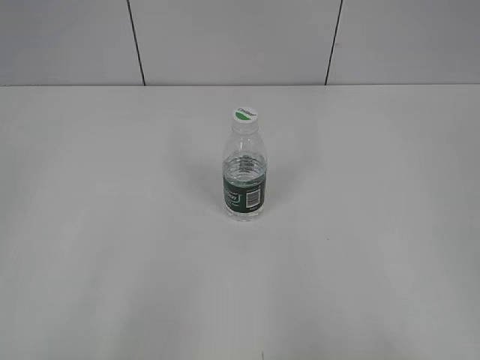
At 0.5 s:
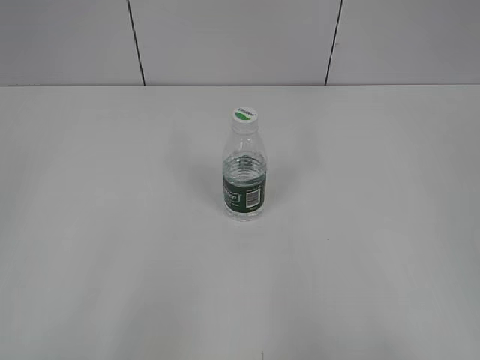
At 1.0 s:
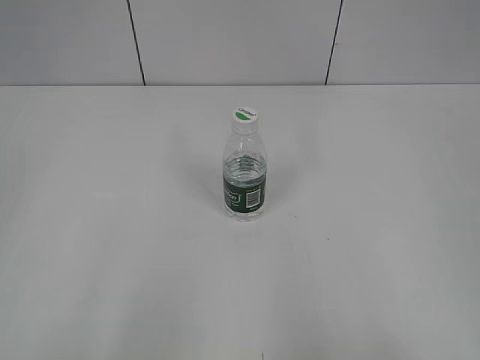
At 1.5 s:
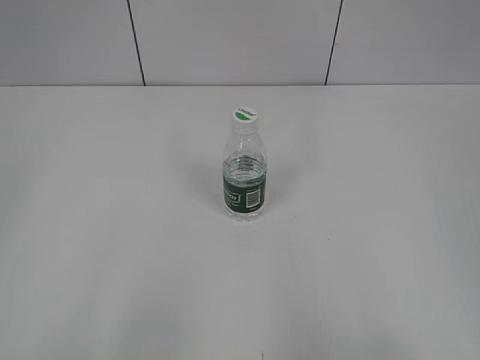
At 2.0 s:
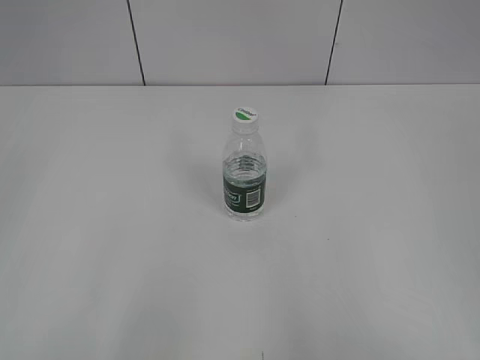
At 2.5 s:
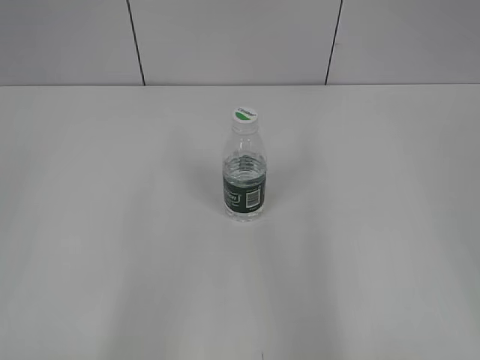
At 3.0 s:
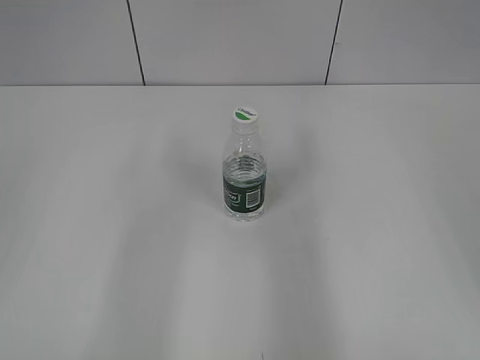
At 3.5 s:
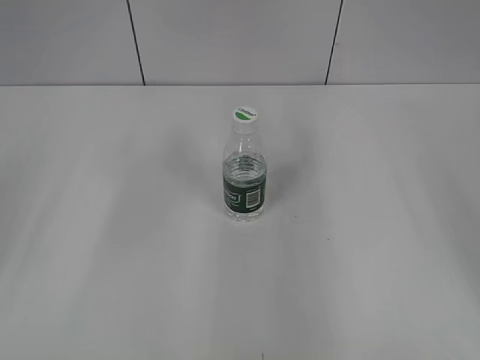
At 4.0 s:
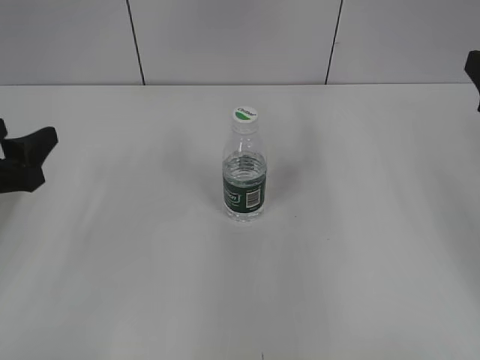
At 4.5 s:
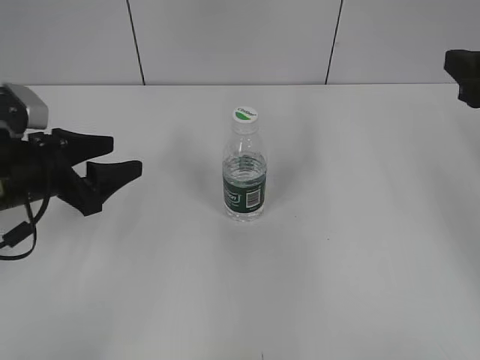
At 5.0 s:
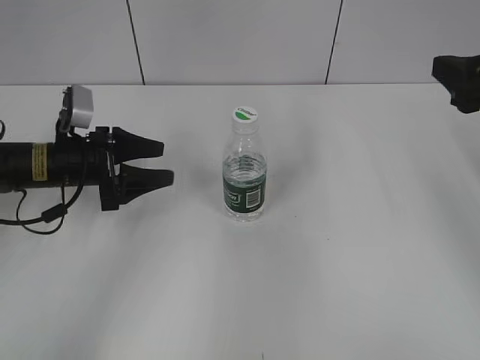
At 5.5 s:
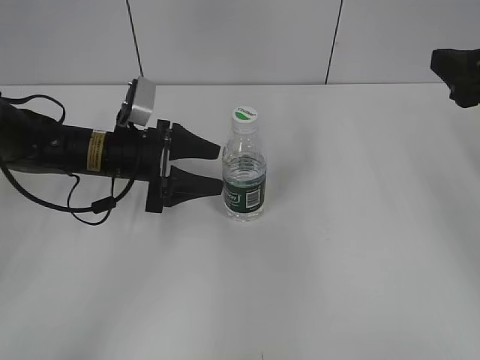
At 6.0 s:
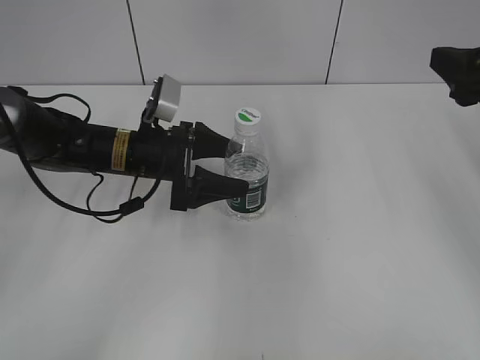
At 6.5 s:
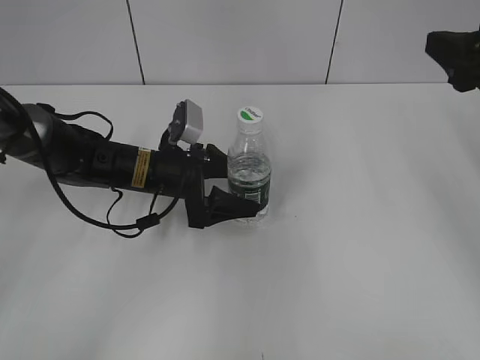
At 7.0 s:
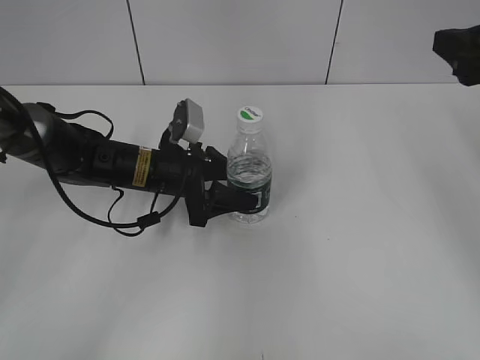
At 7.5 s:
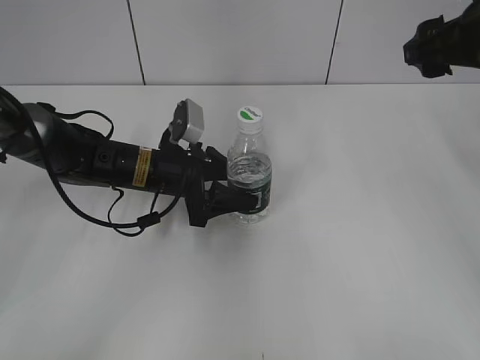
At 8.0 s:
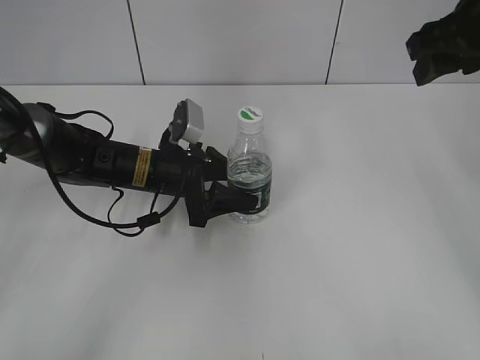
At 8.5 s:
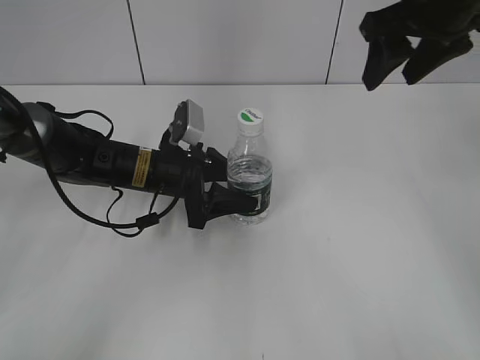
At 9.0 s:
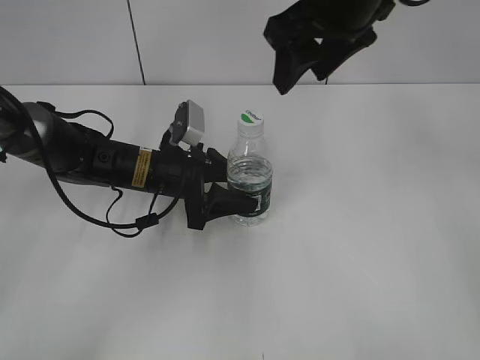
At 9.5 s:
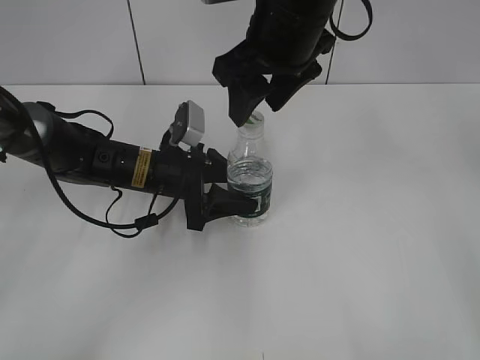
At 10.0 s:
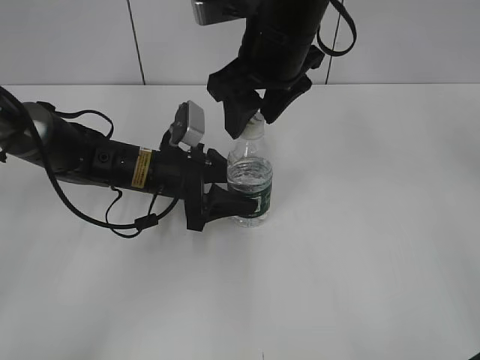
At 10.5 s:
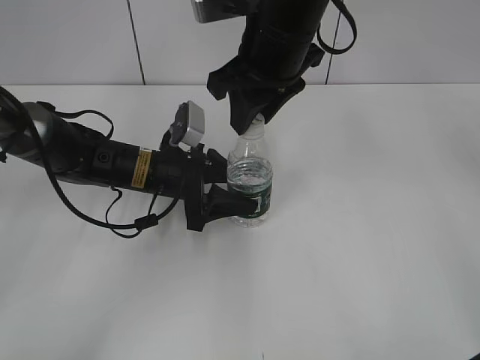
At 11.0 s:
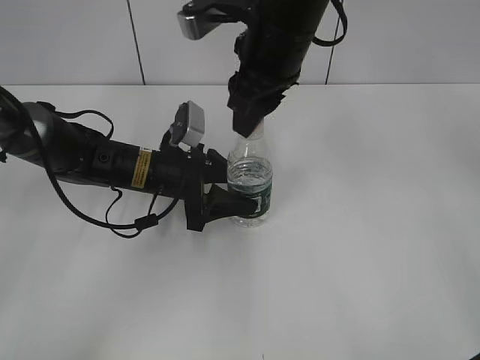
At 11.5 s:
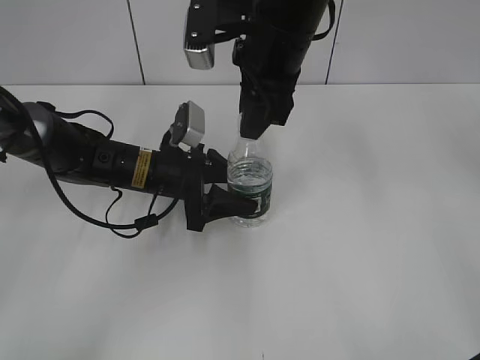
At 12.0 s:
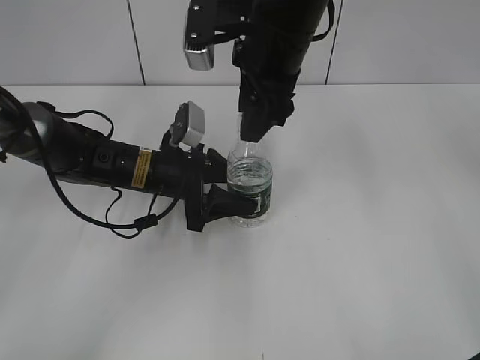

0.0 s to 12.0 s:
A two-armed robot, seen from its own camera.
Step, 0.0 to 7.0 s: Grasp the bottle and move it to the center of the table with the left gripper.
2.0 to 4.0 s: The left gripper goes about 25 cm forward and downward. Meanwhile the right gripper shifts about 25 cm forward.
4.0 to 6.0 s: The left gripper is displaced to the right and forward by some 20 cm, and opens its fingers.
6.0 to 8.0 s: The right gripper shifts roughly 5 cm forward; the left gripper closes.
8.0 to 10.0 s: The right gripper heads to the left, covering approximately 20 cm.

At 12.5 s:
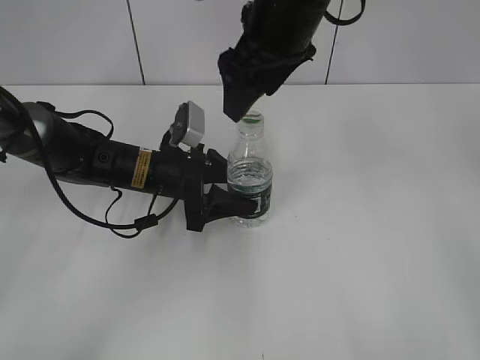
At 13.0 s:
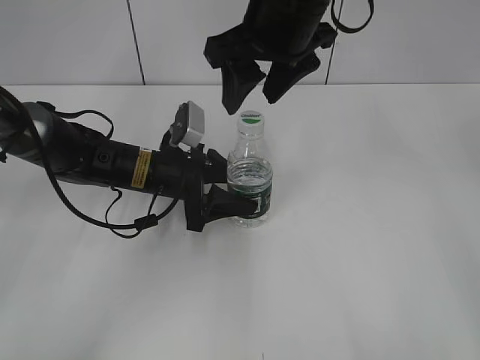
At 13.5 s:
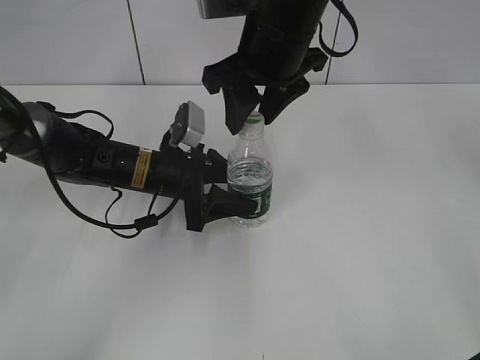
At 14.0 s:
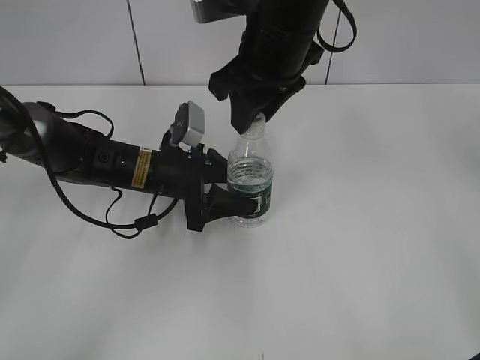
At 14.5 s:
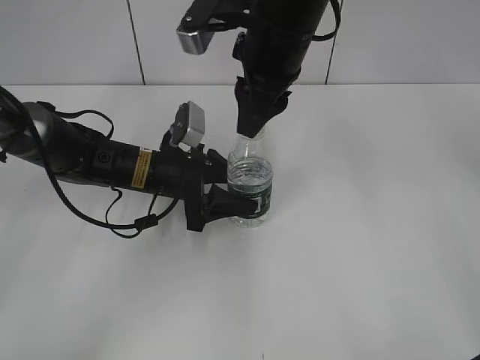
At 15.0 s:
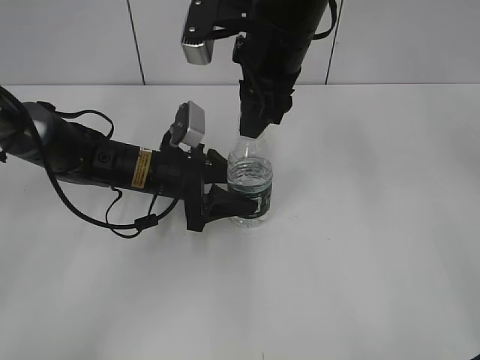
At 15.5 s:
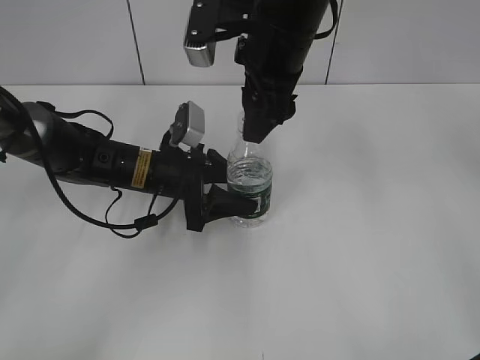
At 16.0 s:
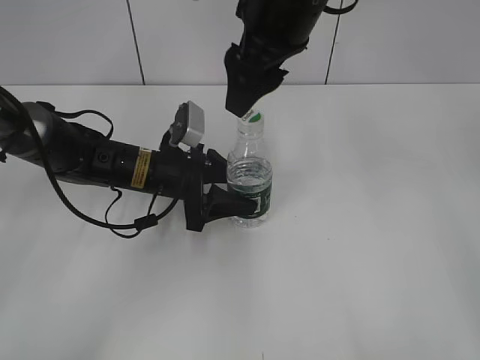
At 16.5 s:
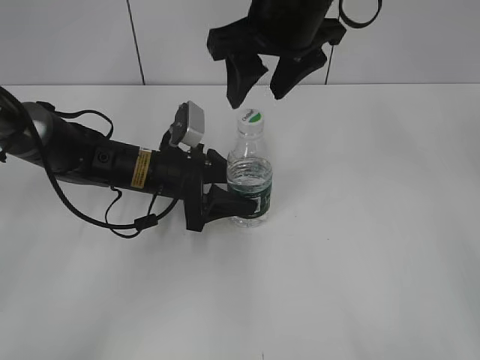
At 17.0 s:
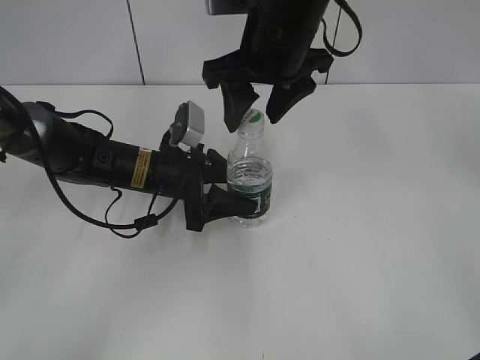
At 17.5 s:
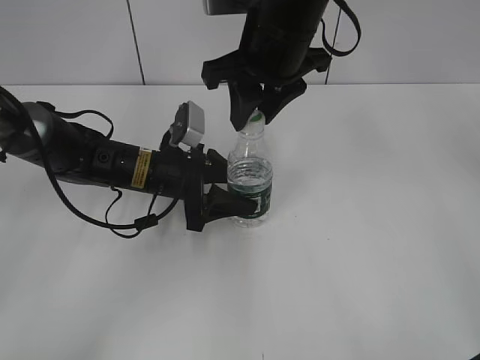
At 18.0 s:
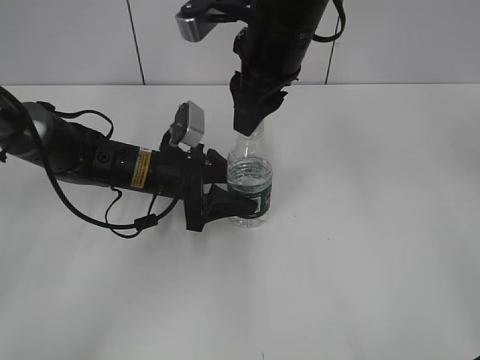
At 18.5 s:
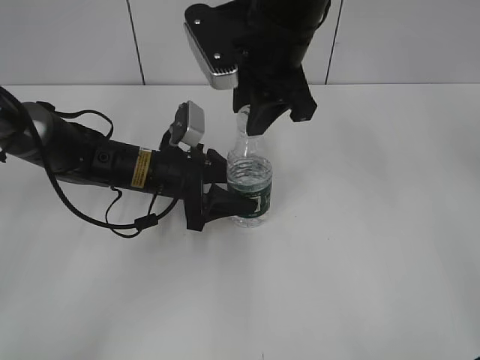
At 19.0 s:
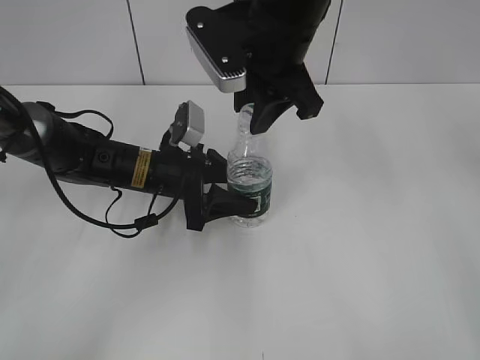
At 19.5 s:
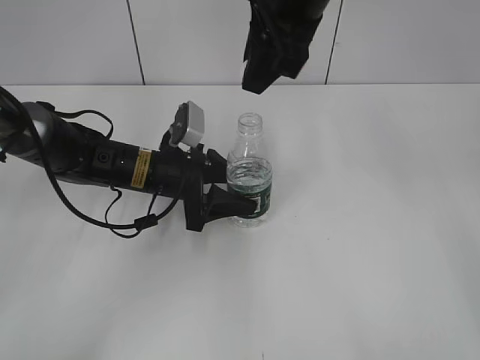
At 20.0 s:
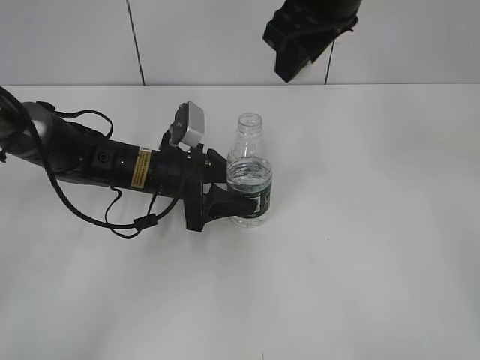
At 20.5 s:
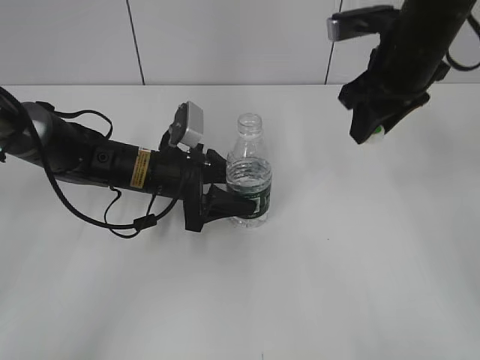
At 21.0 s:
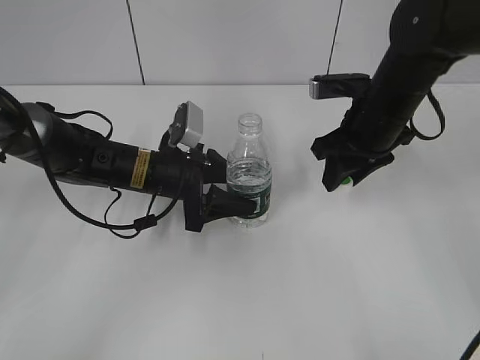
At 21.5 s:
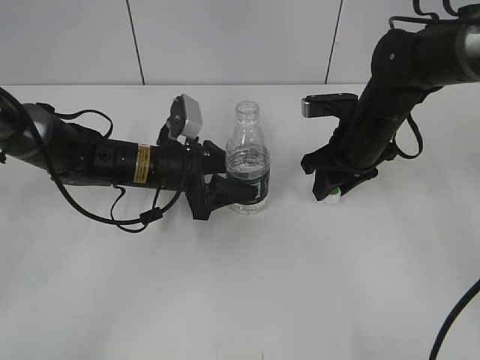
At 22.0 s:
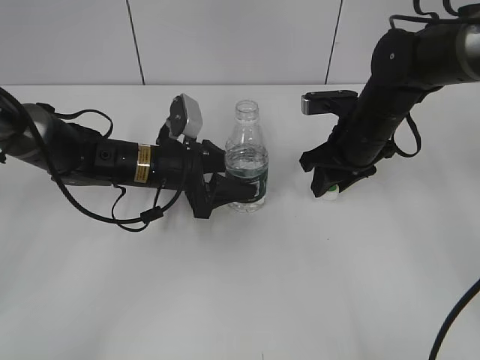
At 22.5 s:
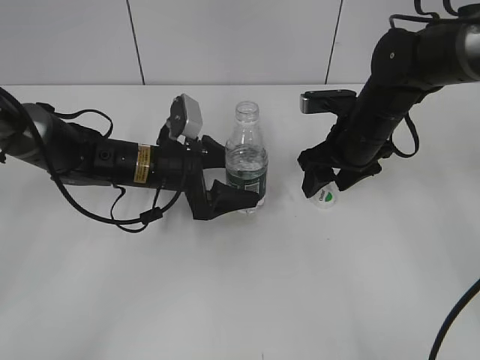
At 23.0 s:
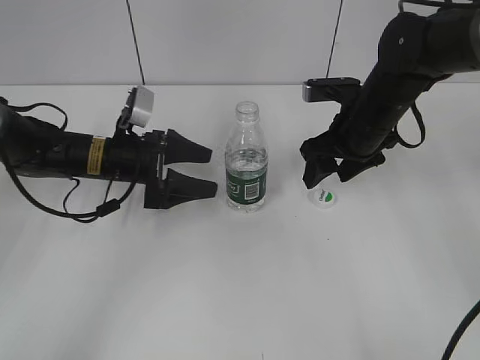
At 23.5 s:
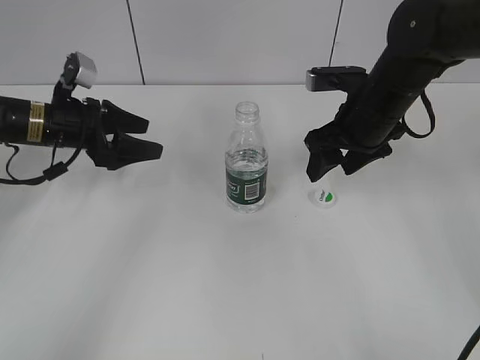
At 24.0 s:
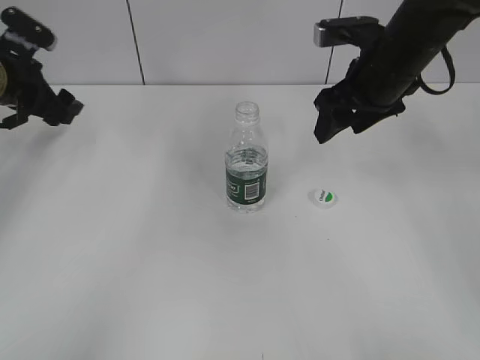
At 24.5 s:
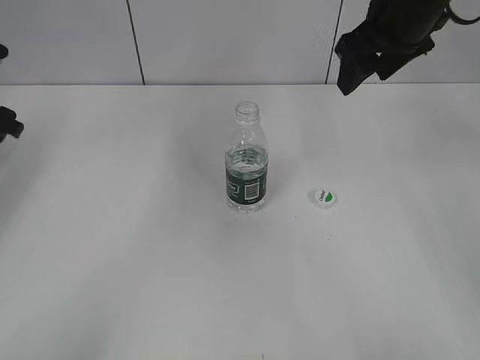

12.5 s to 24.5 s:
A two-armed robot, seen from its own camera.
Step, 12.5 to 19.0 s: Unscrew the bottle cap with the right gripper while holding the bottle with the left gripper.
12.5 to 14.5 s: The right gripper closes up.
14.5 to 16.5 s: The right gripper opens.
16.5 to 18.5 s: The right gripper closes.
18.5 to 20.5 s: The right gripper travels to the right by roughly 15 cm.
20.5 to 22.5 s: The left gripper opens its fingers, while the right gripper travels downward by about 10 cm, and opens up.
22.5 to 24.5 s: The left gripper moves to the left and upward, roughly 25 cm. The right gripper heads upward, covering approximately 15 cm.

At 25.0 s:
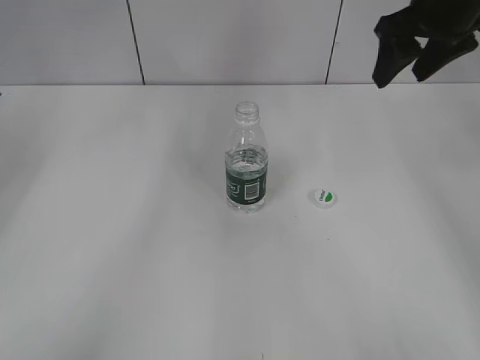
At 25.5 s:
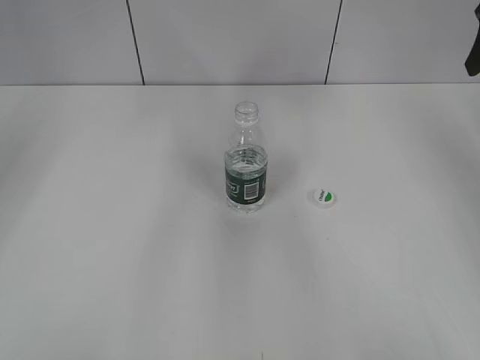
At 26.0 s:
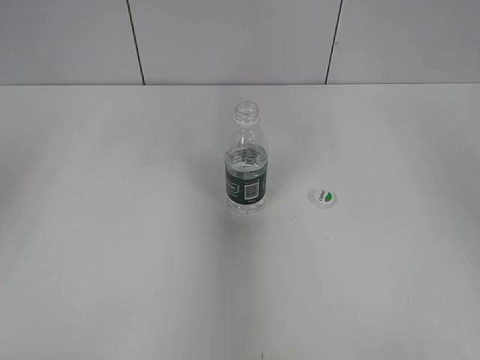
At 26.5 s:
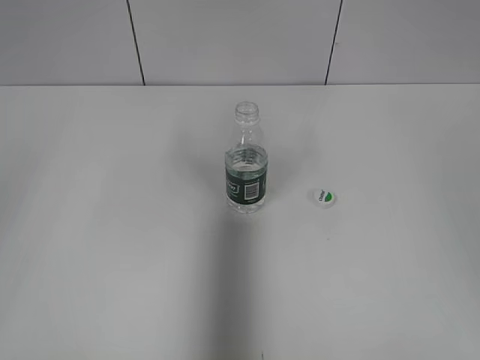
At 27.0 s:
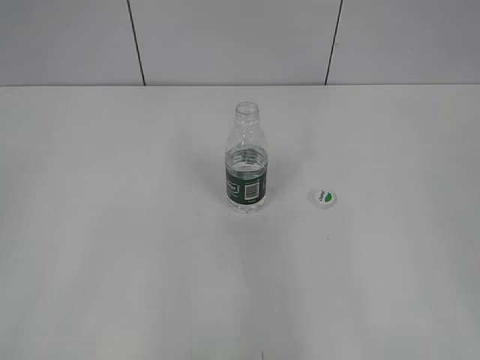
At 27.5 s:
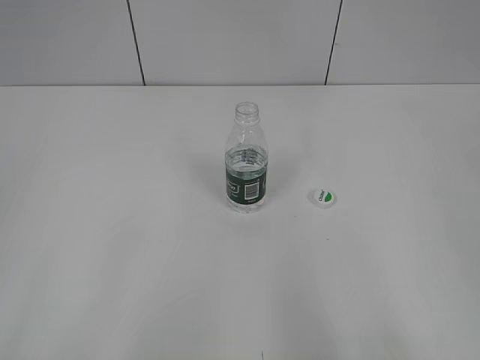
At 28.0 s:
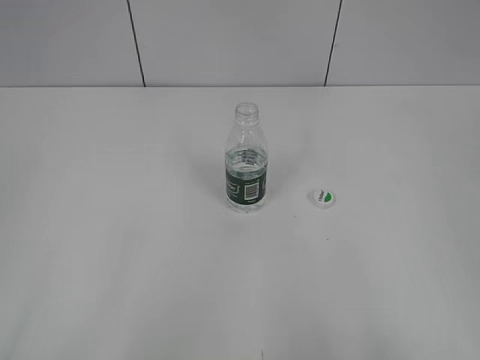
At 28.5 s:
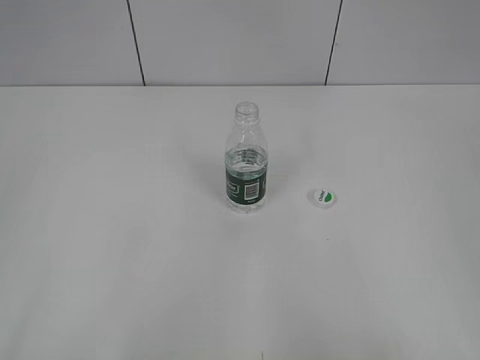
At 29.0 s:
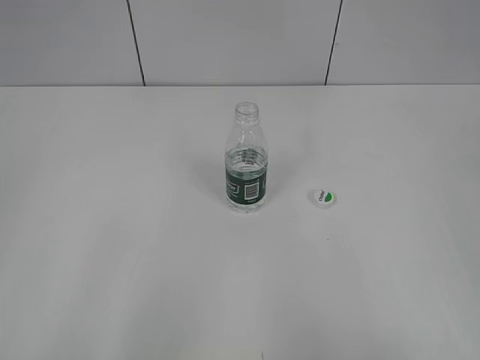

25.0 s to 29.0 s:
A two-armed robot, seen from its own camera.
25.0 to 27.0 s: The right gripper shifts roughly 30 cm backward.
